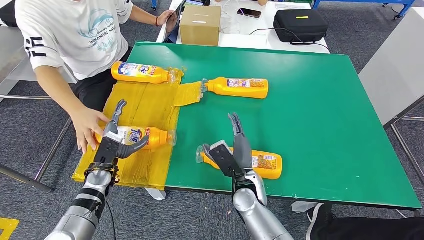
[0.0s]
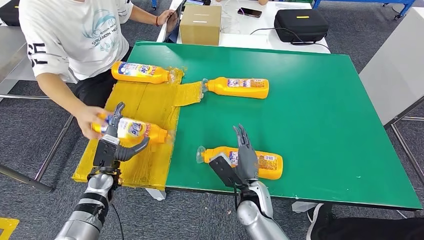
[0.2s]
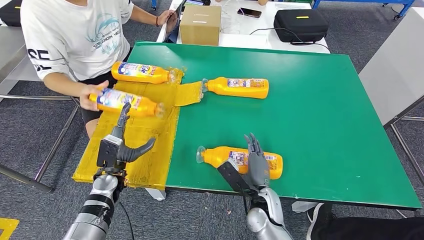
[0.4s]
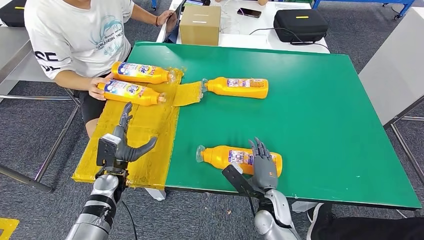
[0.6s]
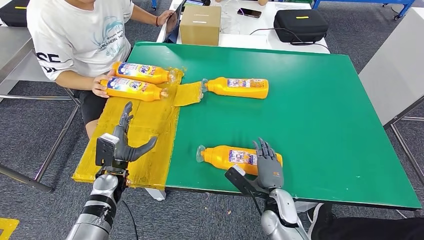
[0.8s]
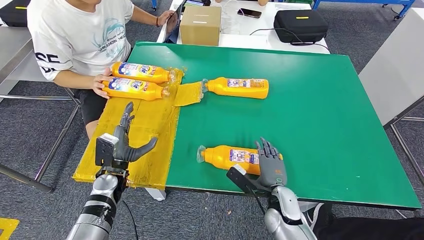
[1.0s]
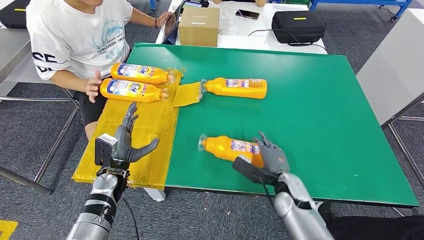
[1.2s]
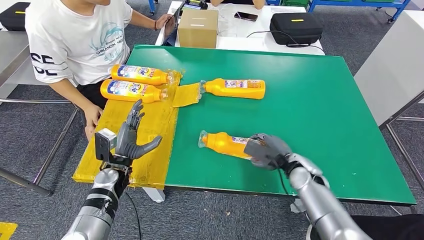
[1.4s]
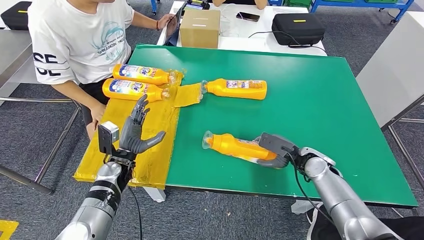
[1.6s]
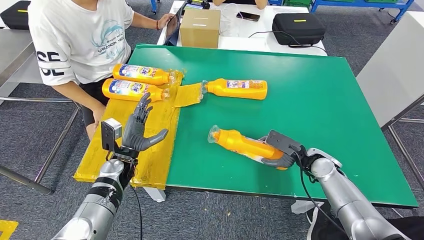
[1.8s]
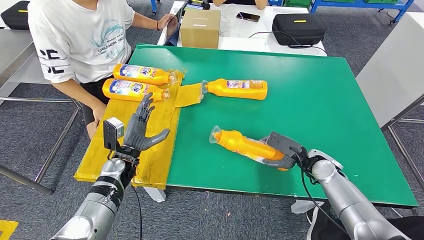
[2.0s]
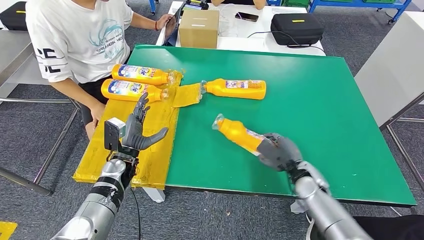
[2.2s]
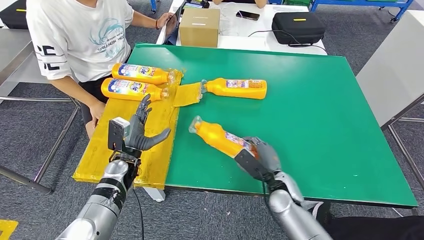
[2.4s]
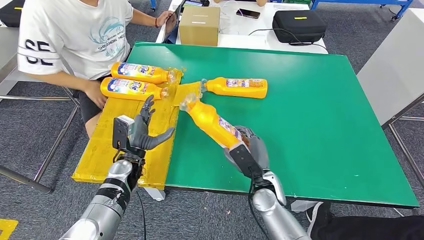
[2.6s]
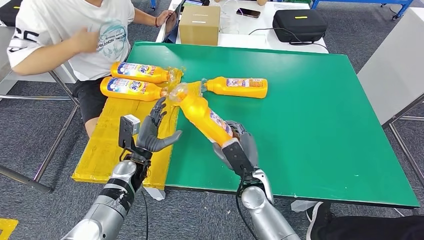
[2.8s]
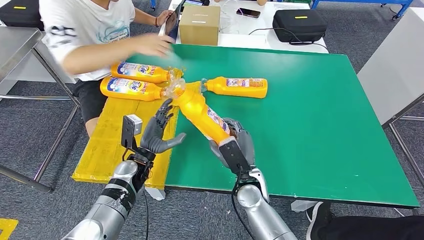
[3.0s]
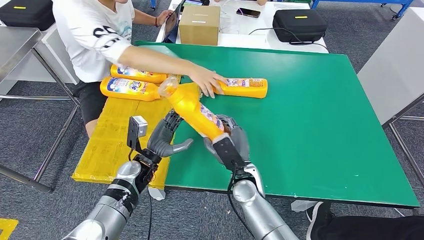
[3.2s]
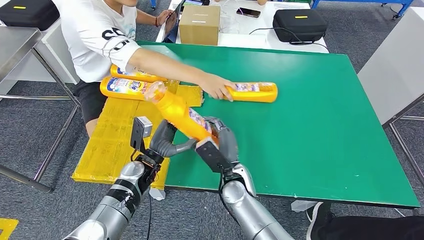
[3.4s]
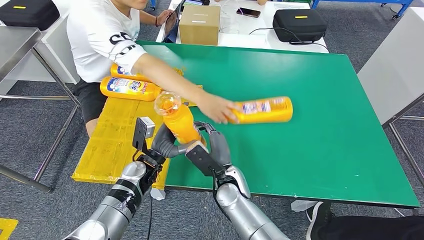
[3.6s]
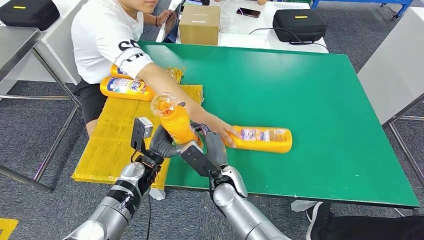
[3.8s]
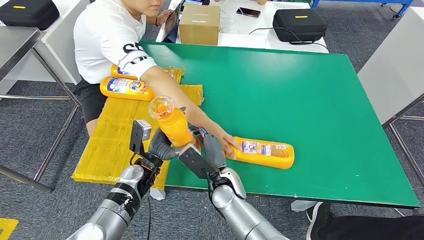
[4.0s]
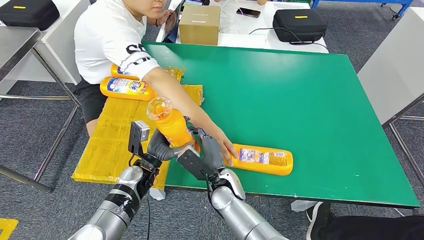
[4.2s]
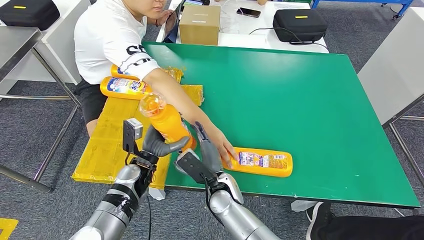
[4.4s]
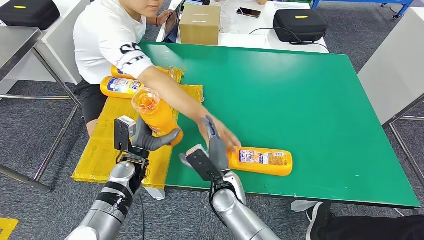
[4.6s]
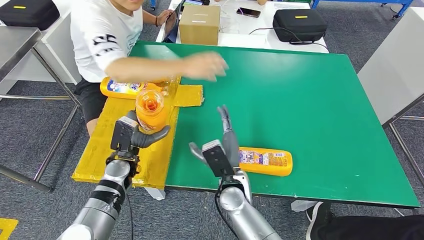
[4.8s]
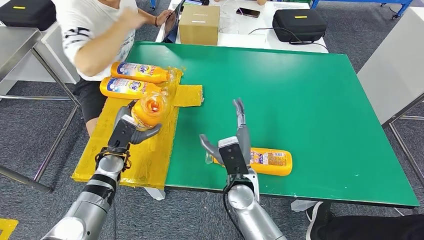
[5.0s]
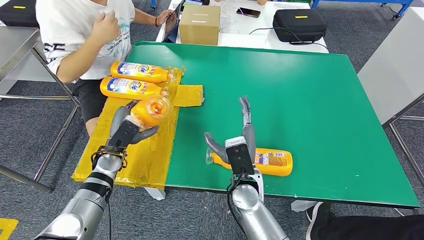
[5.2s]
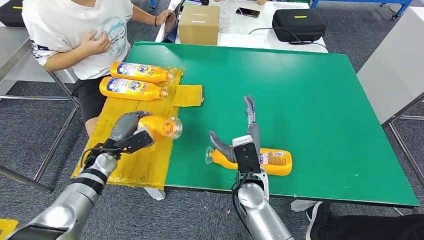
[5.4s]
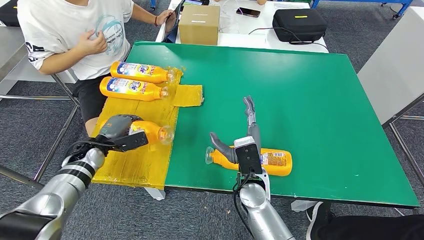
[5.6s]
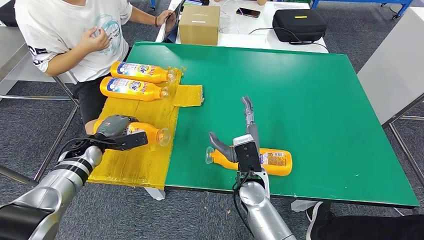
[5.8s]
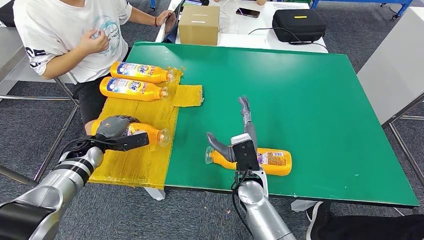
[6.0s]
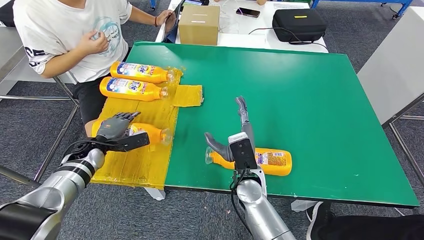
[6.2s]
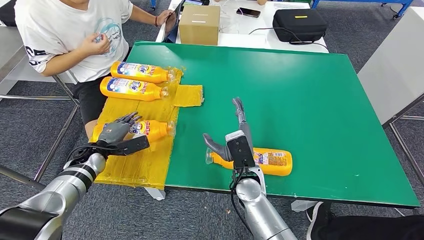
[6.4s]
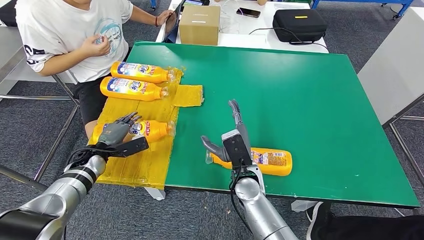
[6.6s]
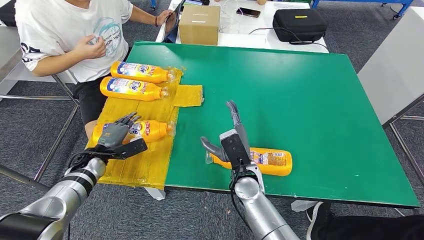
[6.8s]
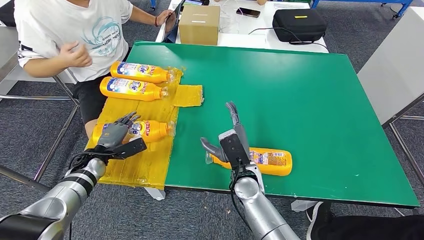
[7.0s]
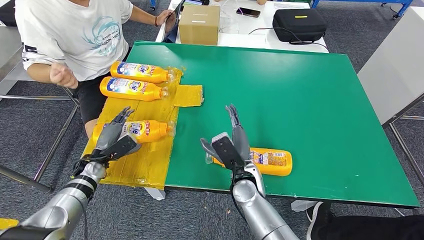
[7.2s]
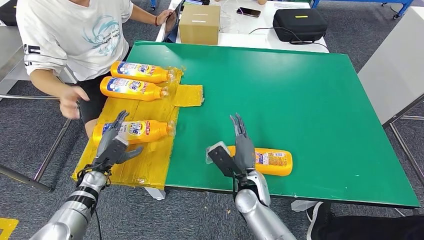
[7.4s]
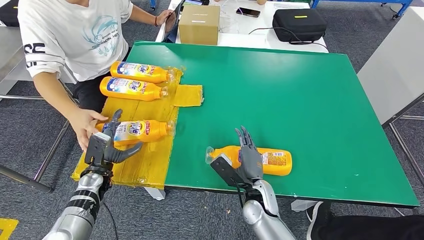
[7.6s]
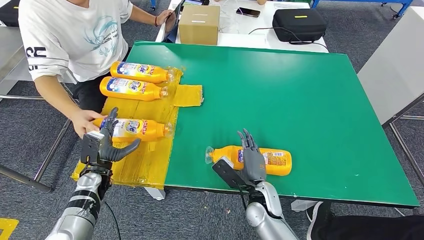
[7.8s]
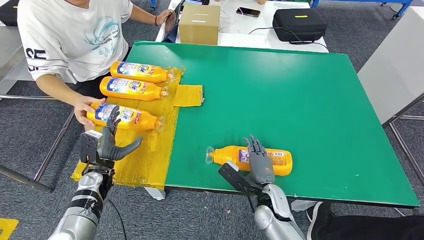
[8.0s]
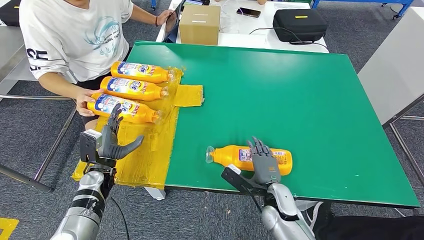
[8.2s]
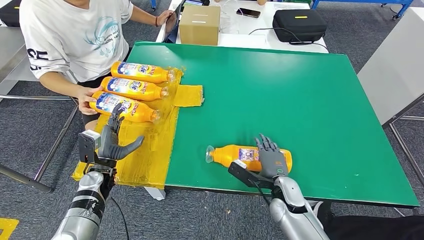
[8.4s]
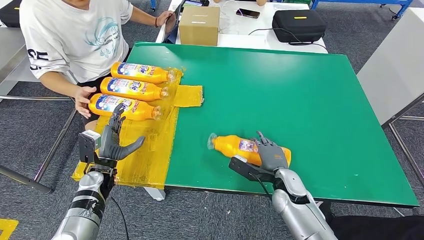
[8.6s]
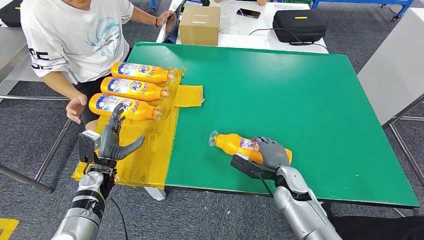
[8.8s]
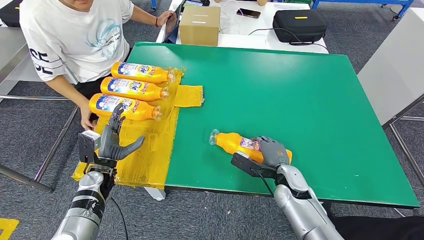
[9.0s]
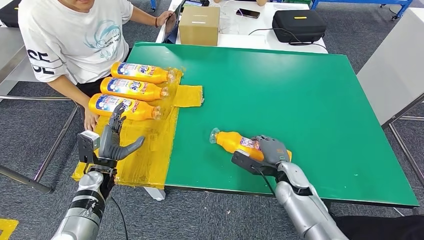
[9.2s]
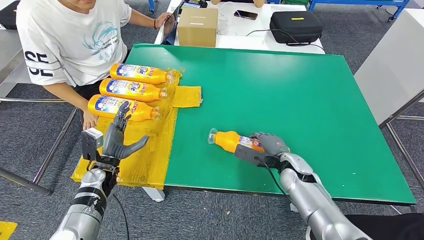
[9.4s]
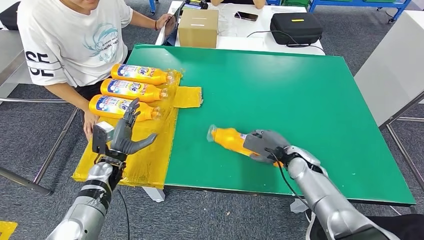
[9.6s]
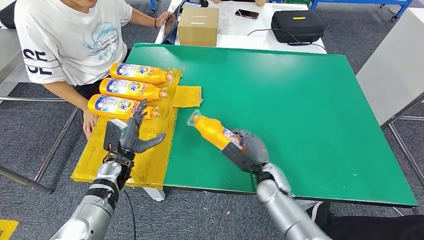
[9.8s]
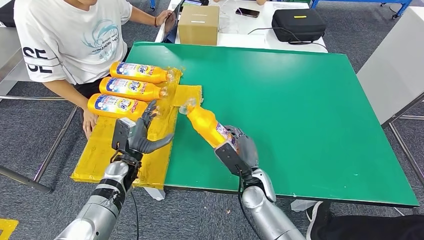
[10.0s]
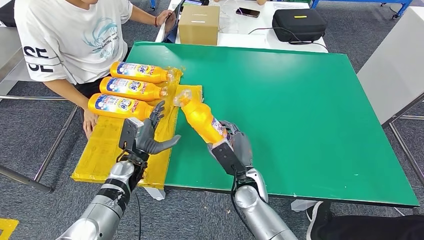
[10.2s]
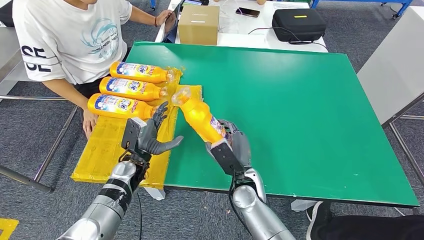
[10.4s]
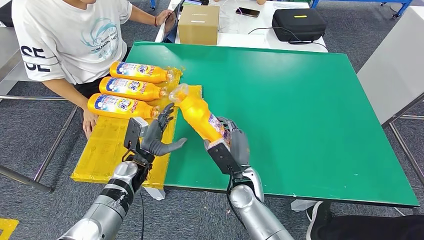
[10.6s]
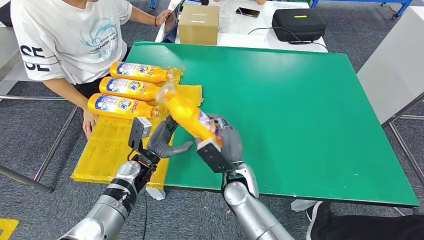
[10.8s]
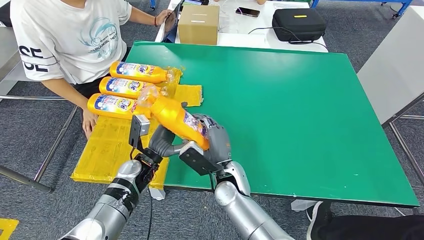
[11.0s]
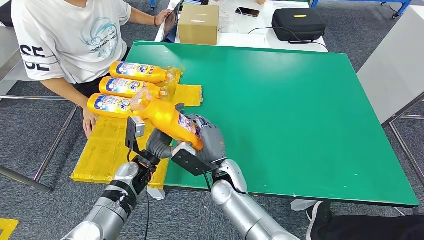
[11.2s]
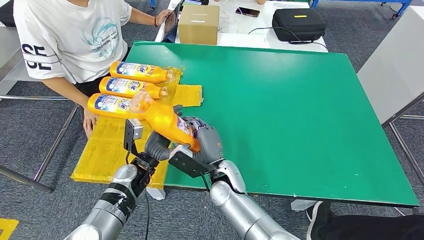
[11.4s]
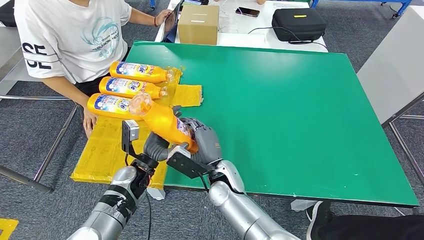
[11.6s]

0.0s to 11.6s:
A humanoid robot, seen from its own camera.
Step, 0.0s to 3.4s: Pick up the bottle from the table.
Step, 3.6s to 6.4s: Flip the bottle to face forward.
Step, 6.6s to 11.2s: Pick up the bottle from the table.
5.8s to 7.2s: The left hand ends up some 5 cm from where it was.
10.2s to 11.6s: The right hand heads to the left, covering approximately 5 cm.

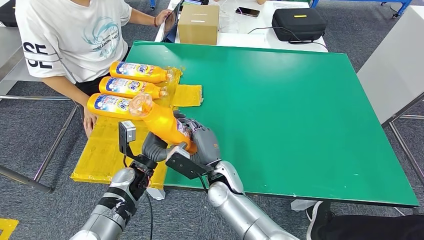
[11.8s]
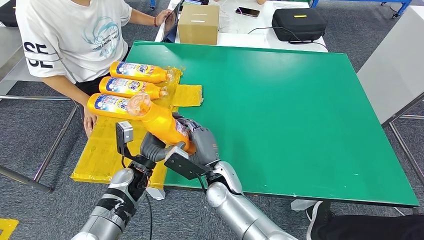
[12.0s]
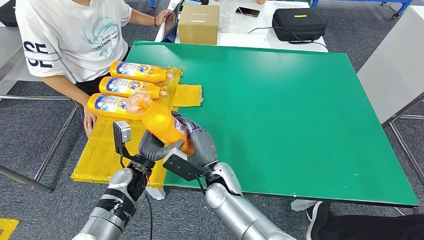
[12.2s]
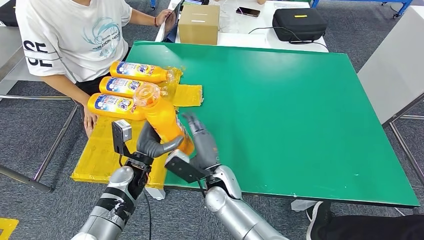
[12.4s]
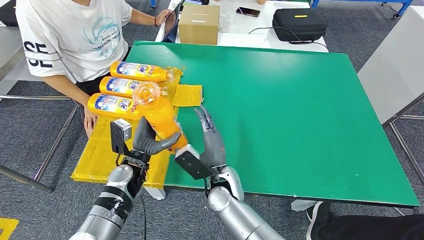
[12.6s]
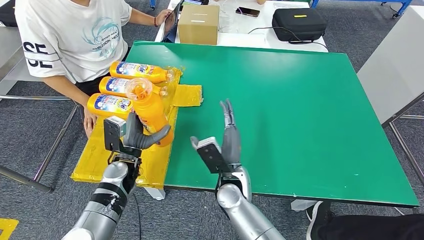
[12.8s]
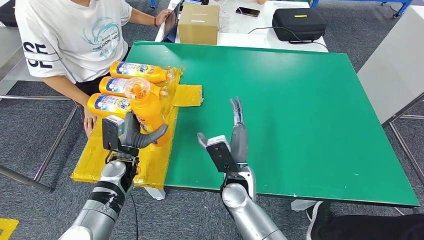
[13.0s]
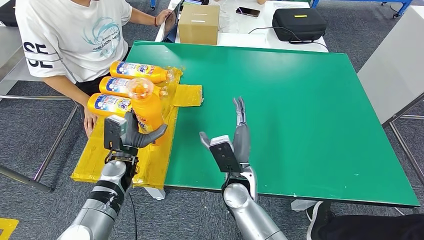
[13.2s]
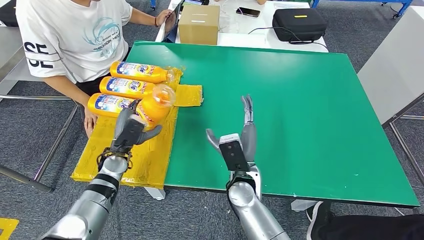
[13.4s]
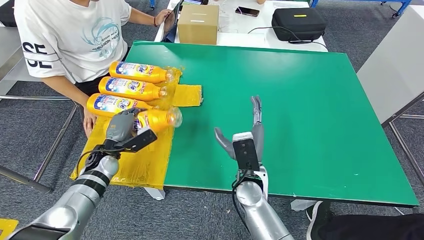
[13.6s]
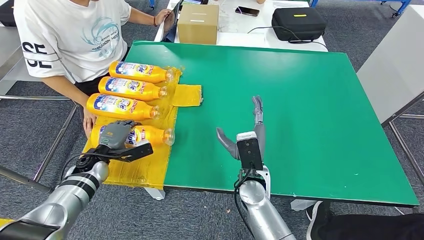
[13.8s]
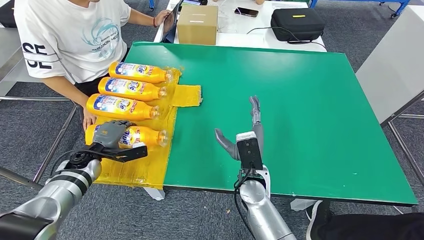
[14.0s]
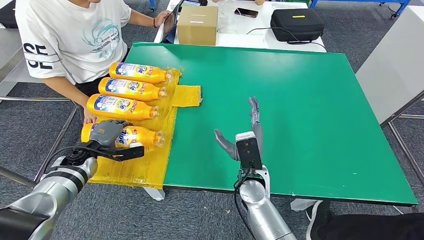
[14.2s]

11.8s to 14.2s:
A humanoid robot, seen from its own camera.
Step, 11.8s to 14.2s: Flip the bottle to face forward.
